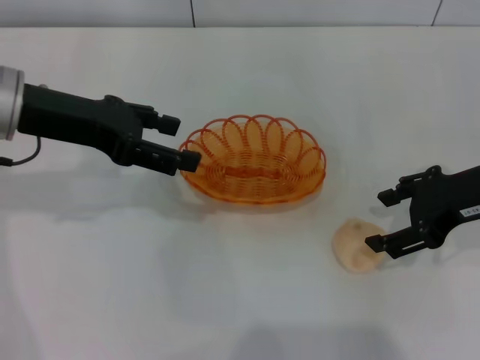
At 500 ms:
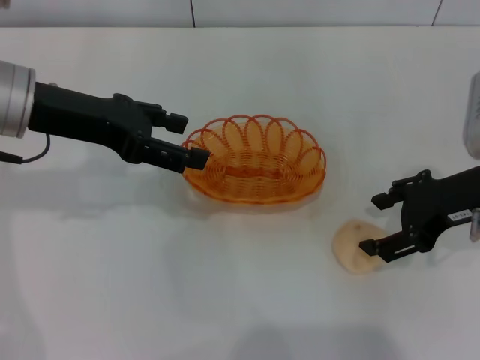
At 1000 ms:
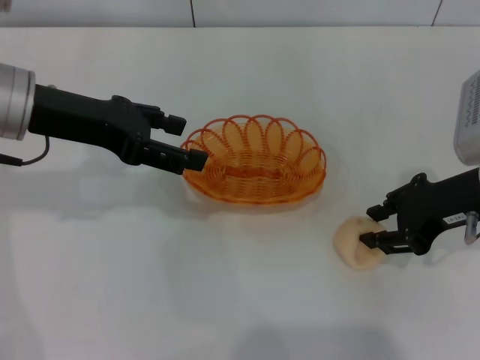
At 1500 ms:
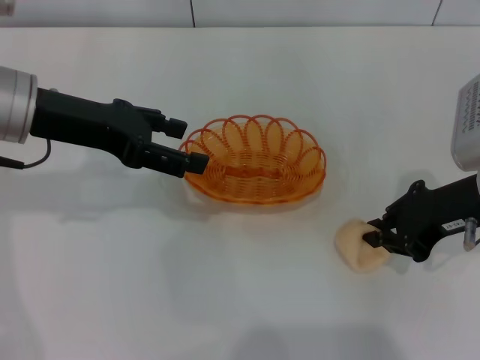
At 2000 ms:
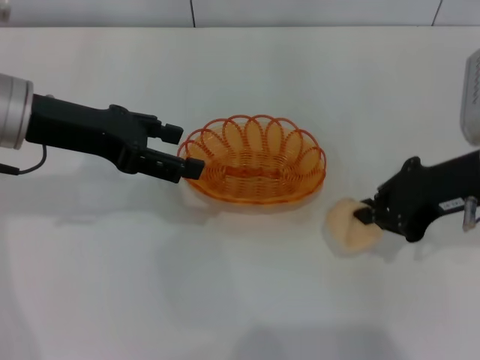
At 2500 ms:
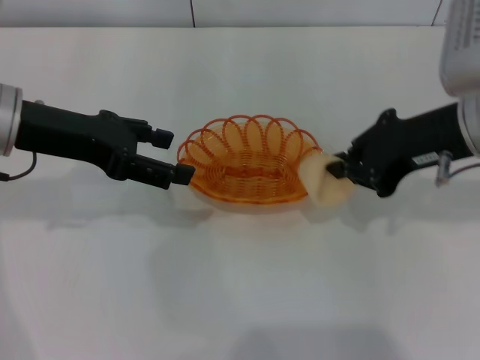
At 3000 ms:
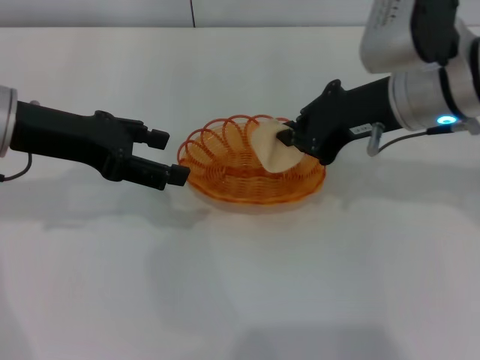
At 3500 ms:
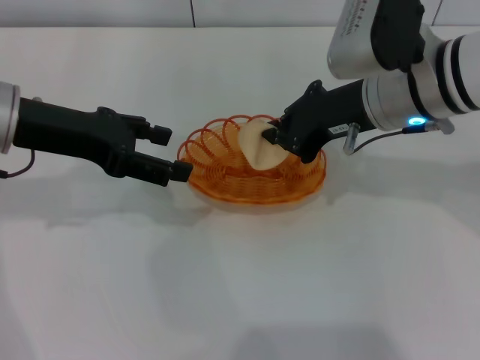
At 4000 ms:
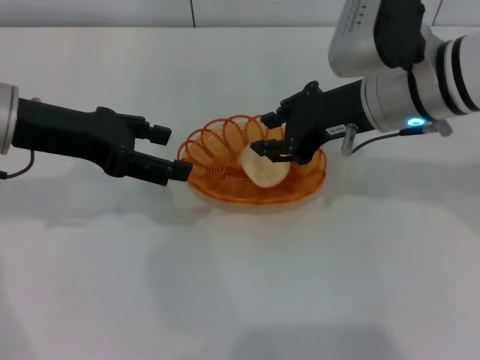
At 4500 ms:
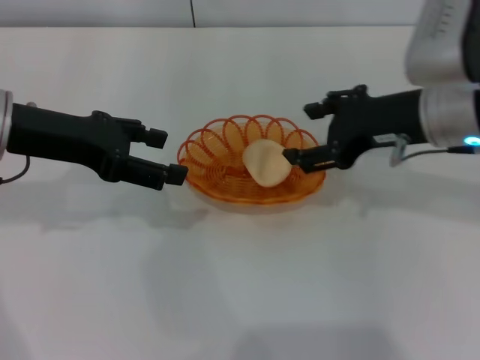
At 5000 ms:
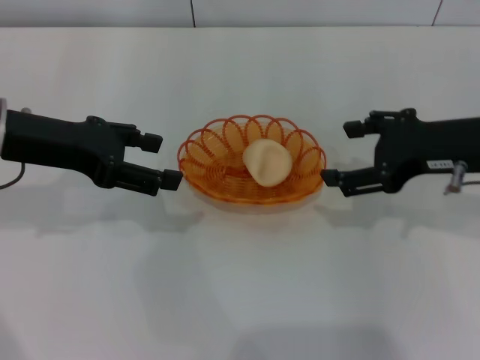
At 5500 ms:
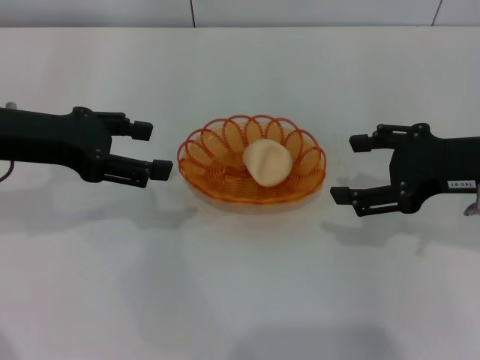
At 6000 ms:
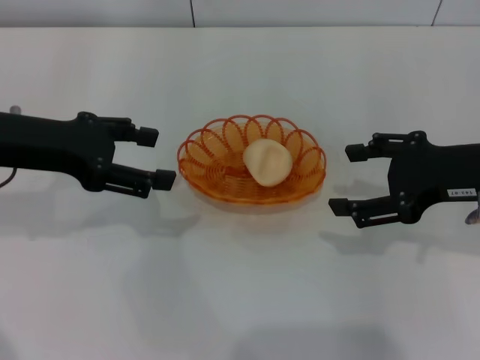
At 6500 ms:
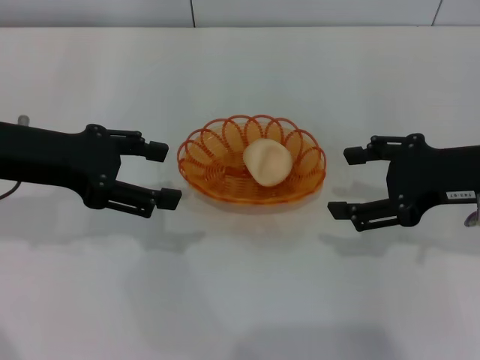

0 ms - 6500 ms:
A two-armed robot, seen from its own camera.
Step, 0 ms - 2000 ms: Pick up the egg yolk pastry with the right gripper.
Step, 3000 ms - 4500 ms: Place the egg yolk pastry into the basket with the right gripper.
0 ms - 2000 ms: The right gripper closes its fingers.
2000 ms - 4500 ms: The right gripper opens up.
4500 ms - 6500 ms: The right gripper goes some 5 cm to the right.

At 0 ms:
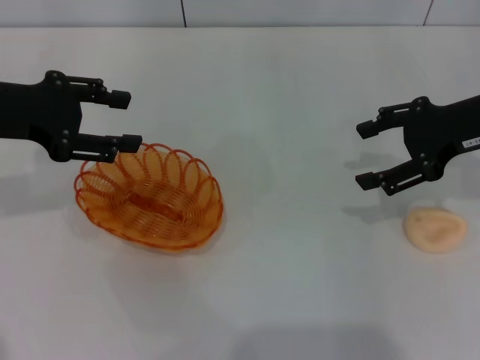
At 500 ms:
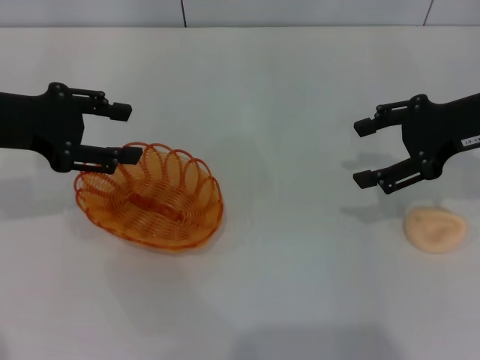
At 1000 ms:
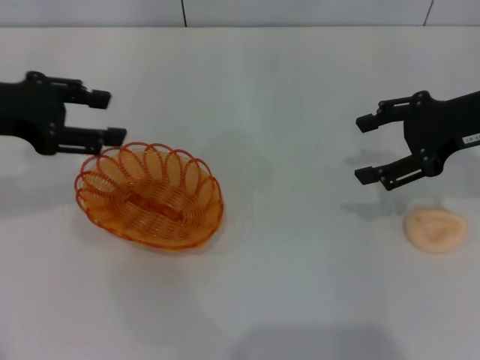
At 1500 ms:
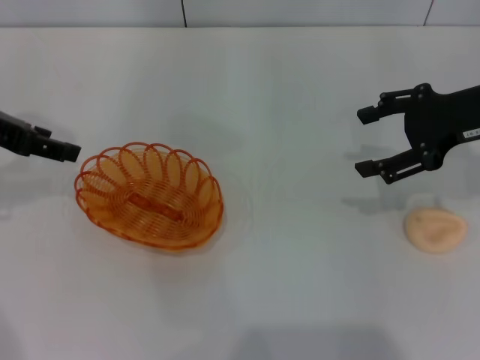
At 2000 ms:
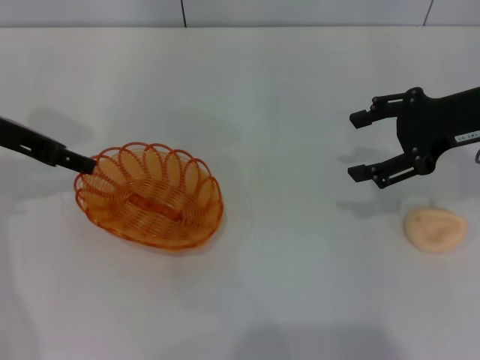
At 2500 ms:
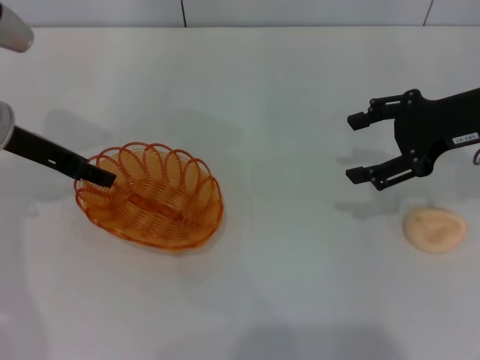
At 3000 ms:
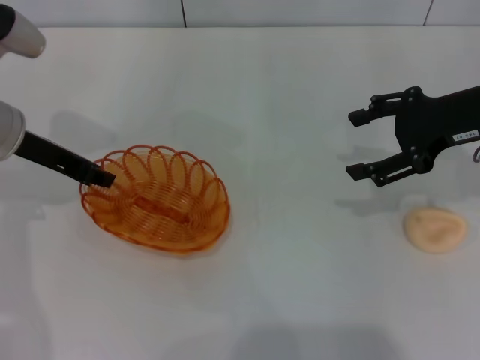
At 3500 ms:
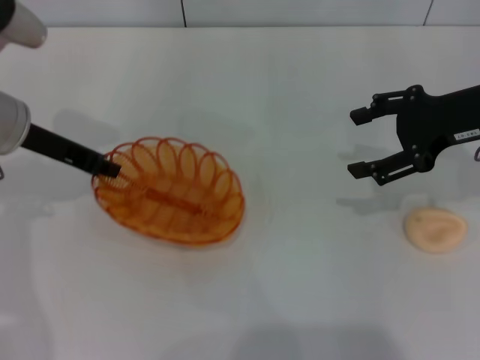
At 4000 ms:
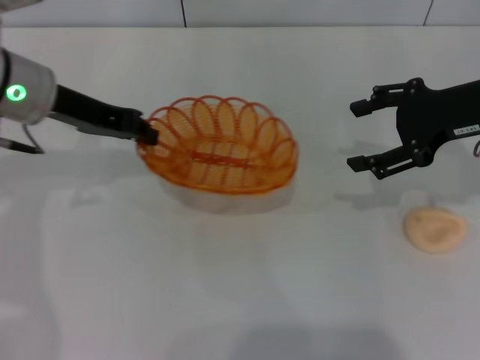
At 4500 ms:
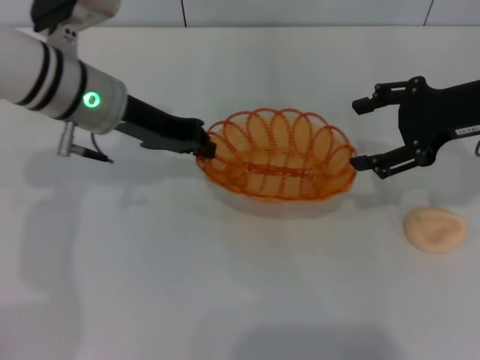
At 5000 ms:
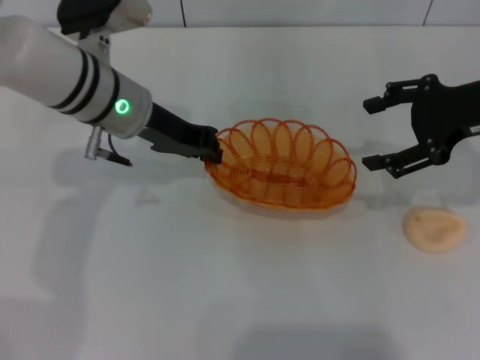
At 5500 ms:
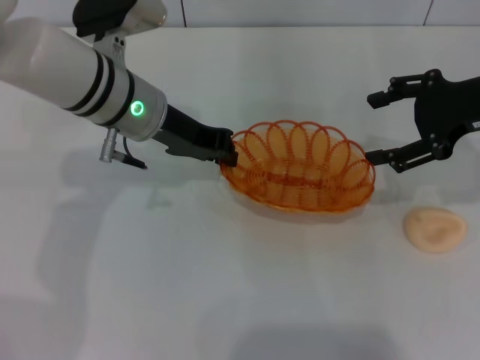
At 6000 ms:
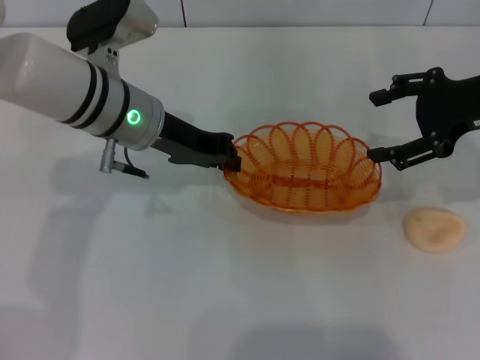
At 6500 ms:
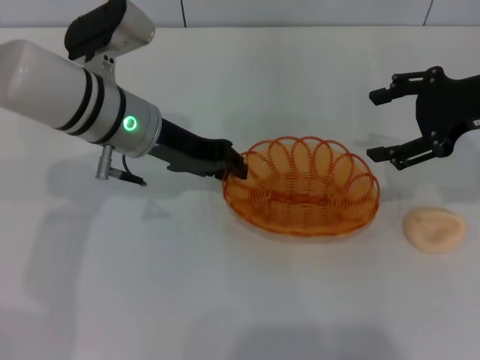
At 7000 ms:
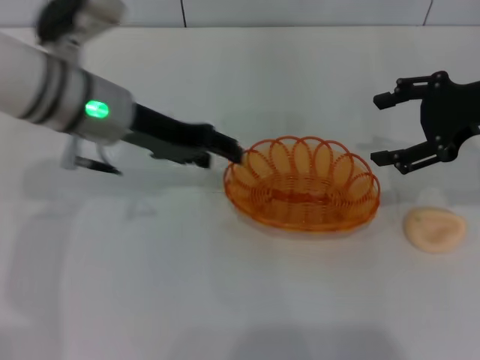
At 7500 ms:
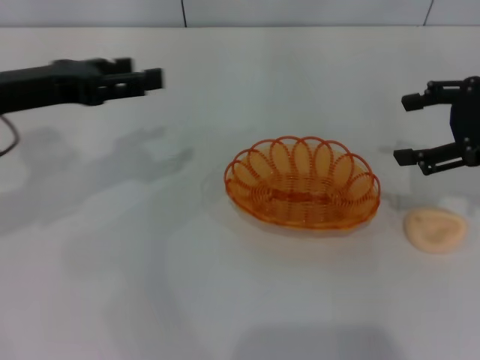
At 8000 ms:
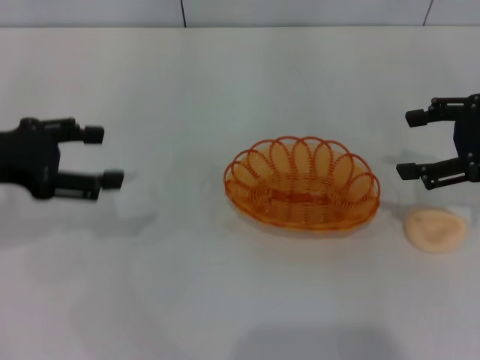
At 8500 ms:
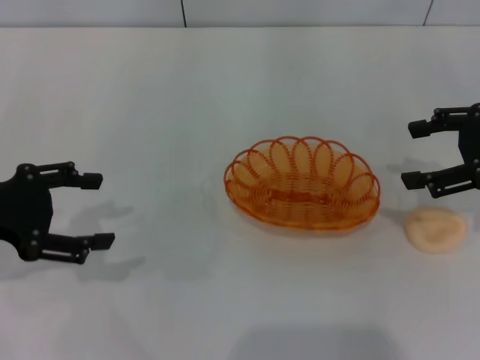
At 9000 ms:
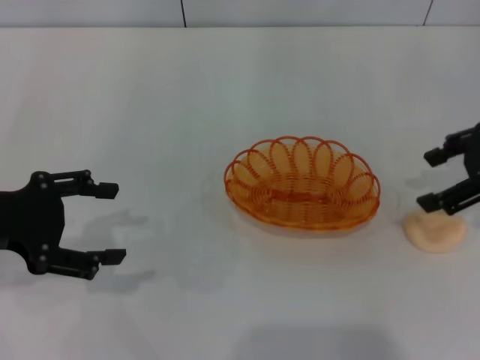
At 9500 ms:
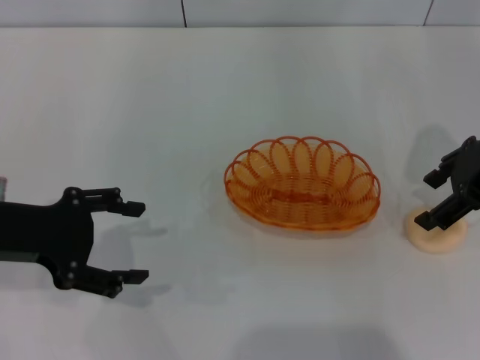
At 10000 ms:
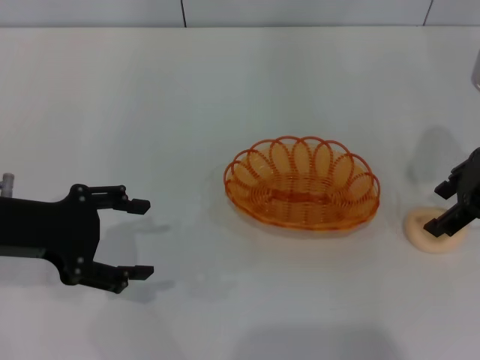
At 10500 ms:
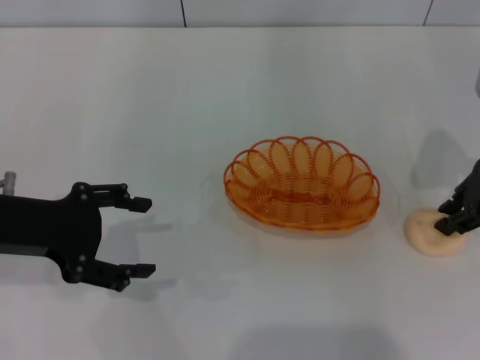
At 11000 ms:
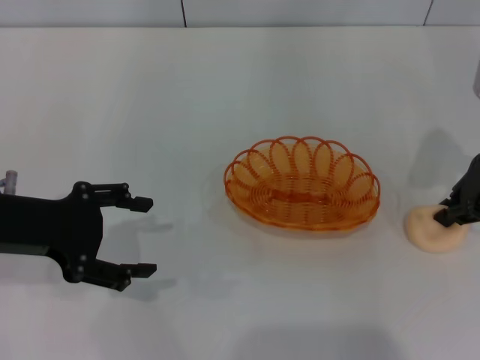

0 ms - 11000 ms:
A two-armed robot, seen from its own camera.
Step, 0 ms - 3500 ms: Pick up the basket with the left gripper.
Step, 4000 ms - 6500 ms: Place the basket in the center of view with the left gripper.
2000 ms - 3500 ms: The left gripper closes.
3500 ms - 5500 ms: The left gripper goes approximately 10 cm to the right.
5500 ms - 7500 ms: The left gripper moves to the left and backward, some 15 cm, and opens up.
7500 ms - 9000 ms: The left gripper moves backward, some 5 cm.
9000 ms - 11000 ms: The right gripper closes up.

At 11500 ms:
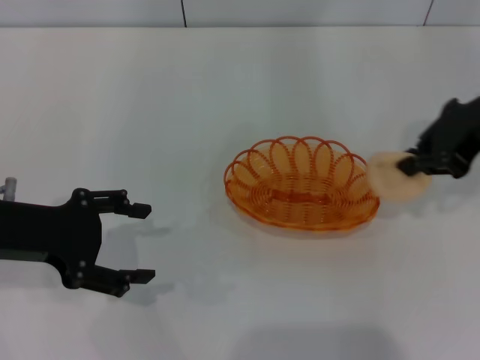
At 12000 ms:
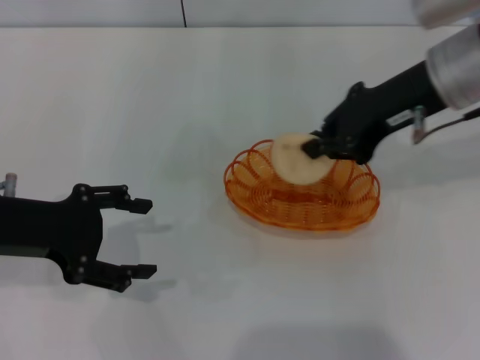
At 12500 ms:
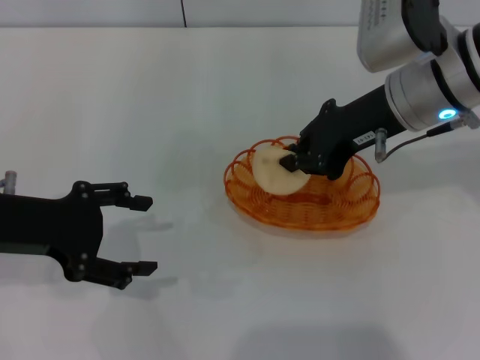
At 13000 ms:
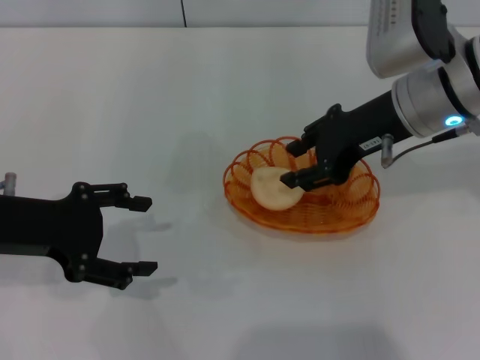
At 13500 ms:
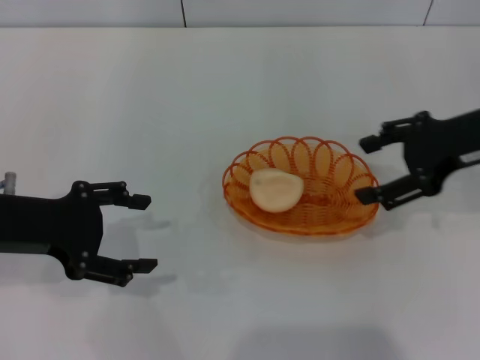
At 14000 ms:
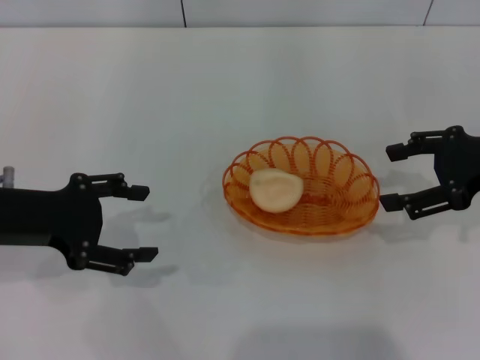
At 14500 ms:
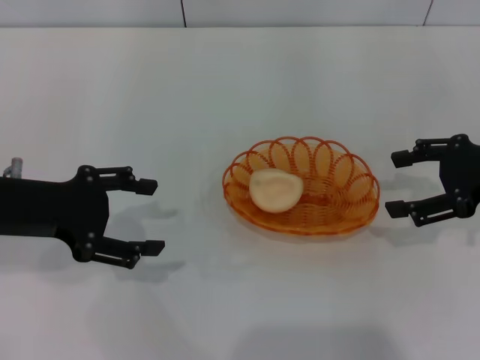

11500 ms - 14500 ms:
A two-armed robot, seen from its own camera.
Step, 11500 ms - 13000 ms: Place the egg yolk pastry into the basket with the right gripper.
11500 ms - 13000 ms: The right gripper goes about 10 cm to the left.
13000 ms - 14500 ms: The right gripper heads to the right, covering roughly 15 cm, and opens its fingers.
